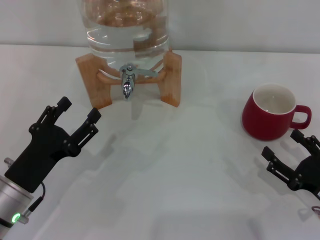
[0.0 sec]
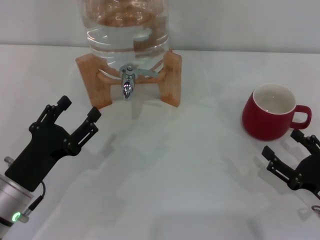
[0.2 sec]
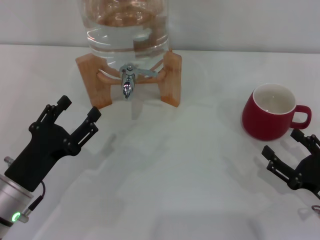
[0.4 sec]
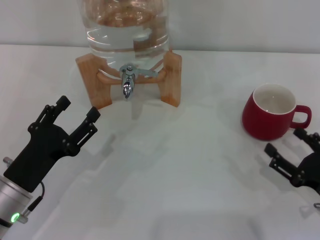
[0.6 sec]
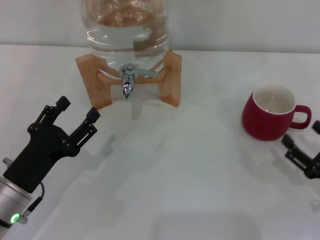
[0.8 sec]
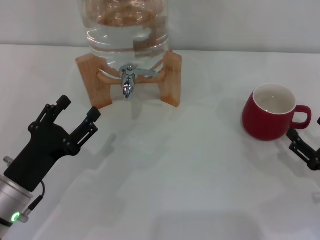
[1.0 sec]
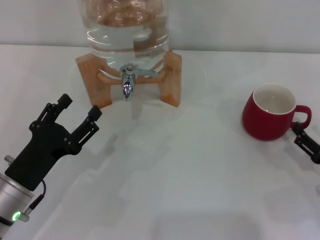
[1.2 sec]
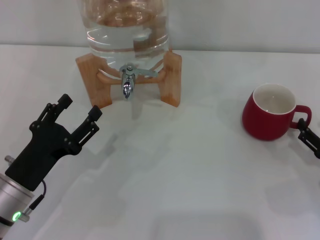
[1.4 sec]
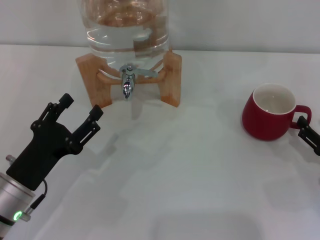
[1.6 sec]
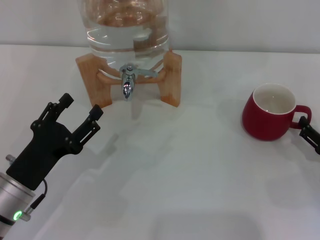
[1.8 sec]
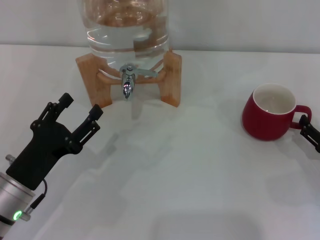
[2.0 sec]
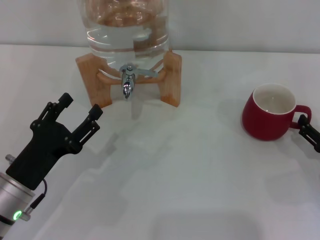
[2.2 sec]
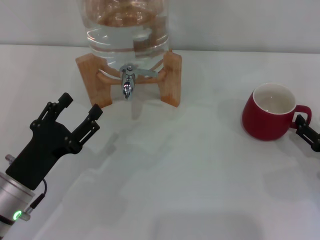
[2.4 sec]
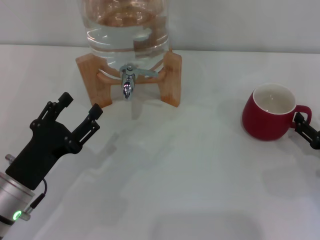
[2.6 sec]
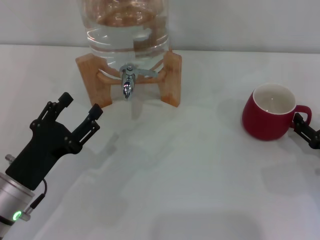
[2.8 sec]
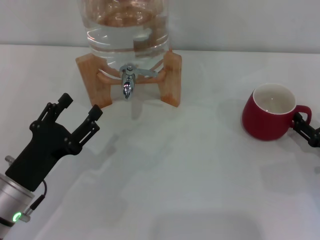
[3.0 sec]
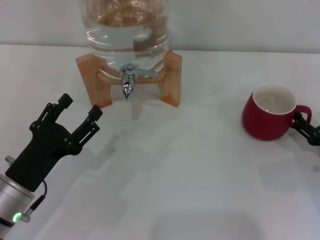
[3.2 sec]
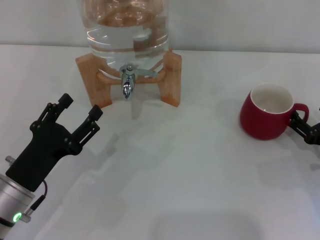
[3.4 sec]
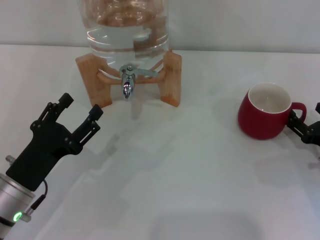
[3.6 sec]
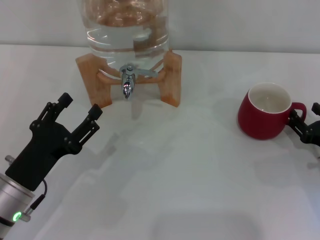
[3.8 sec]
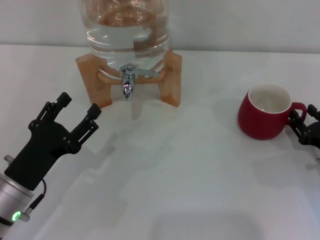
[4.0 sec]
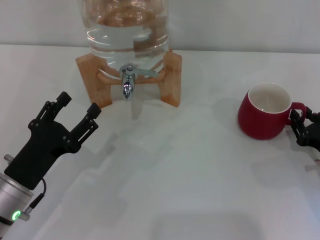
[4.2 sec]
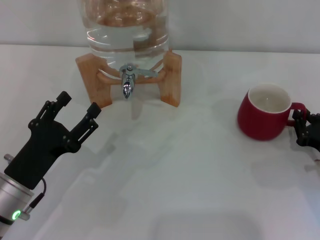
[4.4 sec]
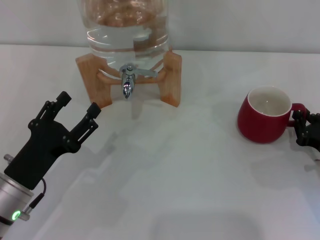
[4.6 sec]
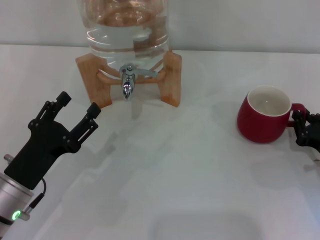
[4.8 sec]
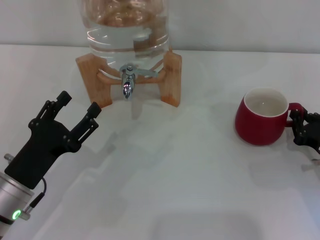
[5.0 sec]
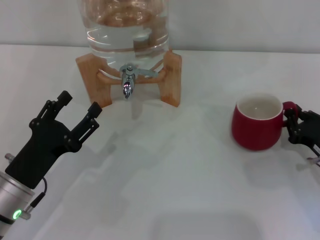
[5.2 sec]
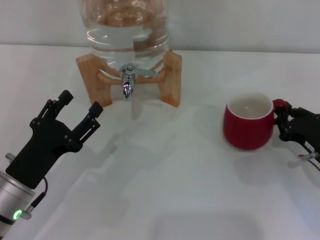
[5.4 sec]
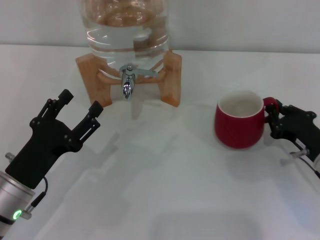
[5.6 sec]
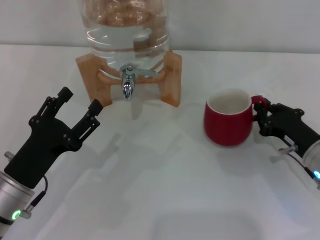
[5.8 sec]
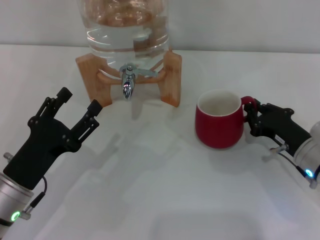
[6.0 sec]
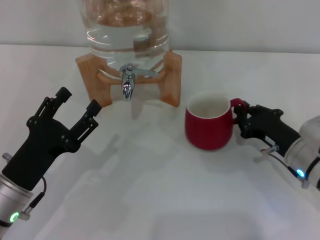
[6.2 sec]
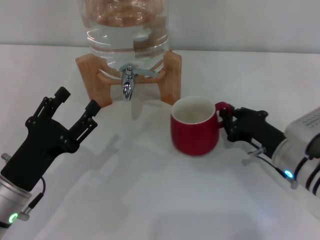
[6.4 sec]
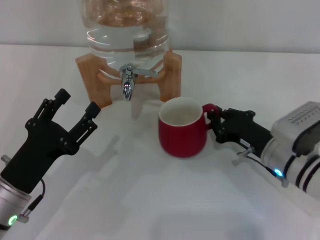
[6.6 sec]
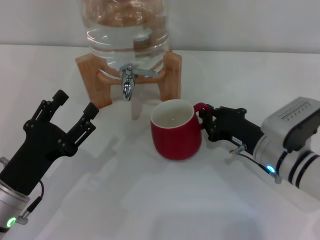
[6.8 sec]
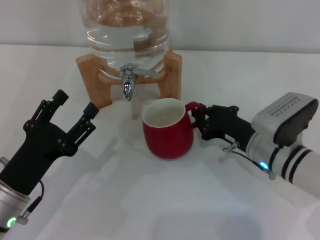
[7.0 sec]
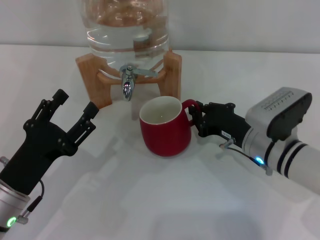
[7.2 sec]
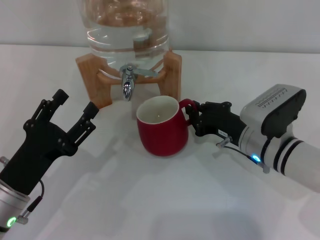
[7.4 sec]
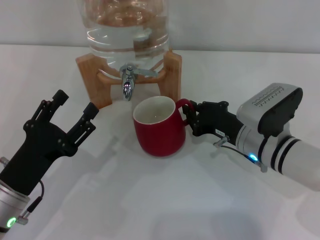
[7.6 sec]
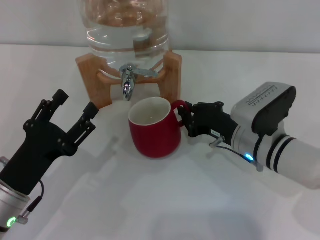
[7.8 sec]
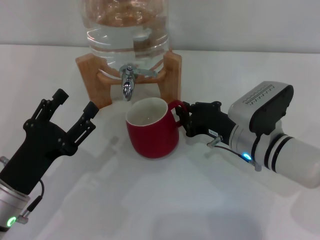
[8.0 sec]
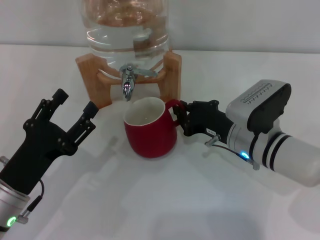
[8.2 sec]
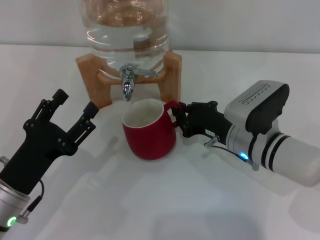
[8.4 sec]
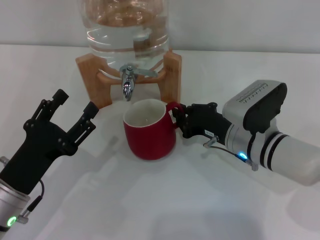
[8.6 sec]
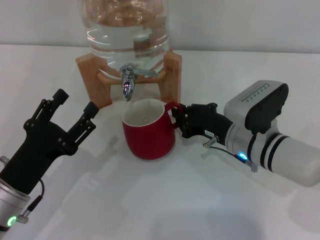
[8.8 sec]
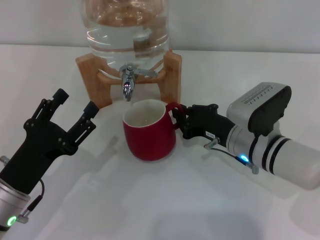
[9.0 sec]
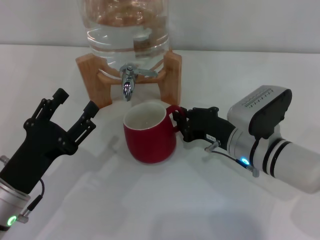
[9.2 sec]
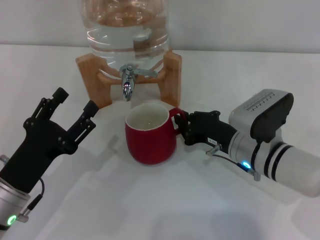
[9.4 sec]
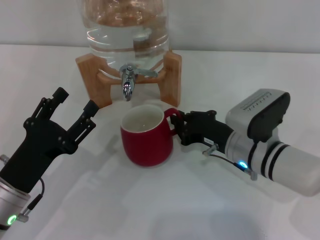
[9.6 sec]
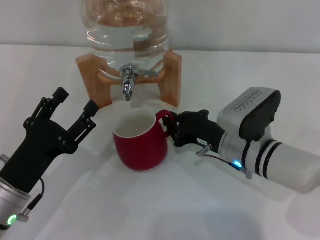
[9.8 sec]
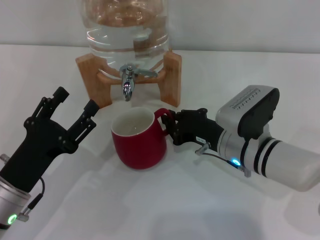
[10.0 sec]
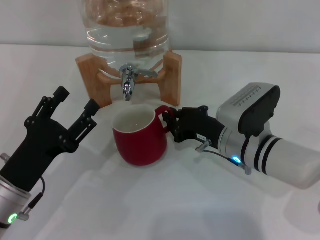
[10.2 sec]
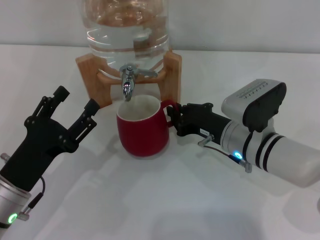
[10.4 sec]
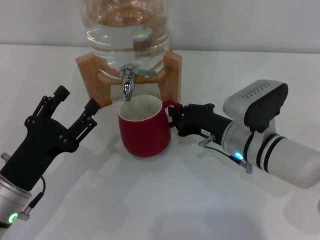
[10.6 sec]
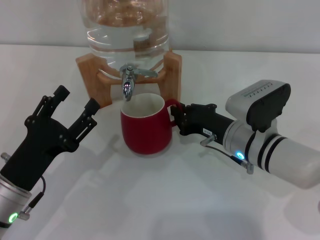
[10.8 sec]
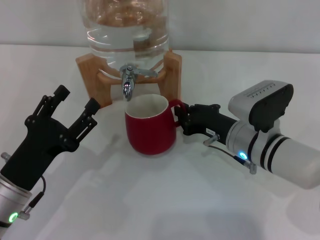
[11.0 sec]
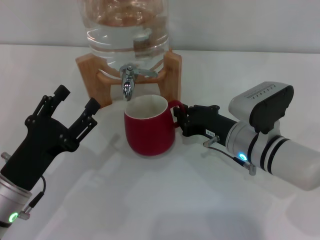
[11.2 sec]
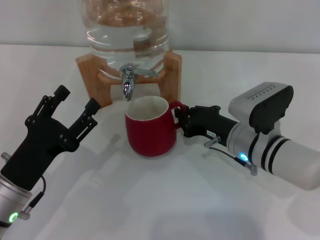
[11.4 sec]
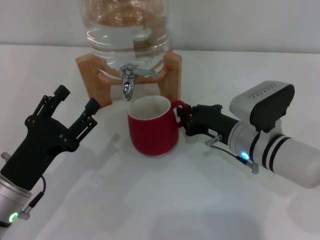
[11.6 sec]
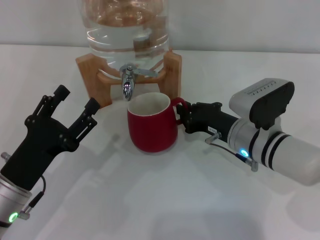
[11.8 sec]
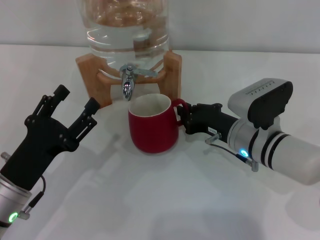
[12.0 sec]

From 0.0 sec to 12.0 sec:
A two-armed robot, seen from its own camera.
Task of the whole recording: the right gripper pick up the red cup and place it horizontally under the faucet, the left gripper turn on the faucet to fill the cup, and then turn off the faucet.
From 0.0 sec to 1.6 sec: The right gripper changes place by roughly 5 cm.
From 1.6 sec to 3.0 sec: The grippers stay close to where they were, moving slightly.
From 3.0 sec to 4.4 sec: The right gripper closes up.
From 4.4 sec to 6.0 sec: The right gripper shifts some 5 cm to the left.
From 6.0 sec to 7.6 sec: The right gripper moves to the left, about 10 cm.
From 7.6 sec to 10.4 sec: The grippers move only a little.
From 10.4 sec to 12.0 sec: Both grippers stay about where they are.

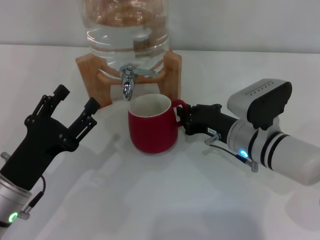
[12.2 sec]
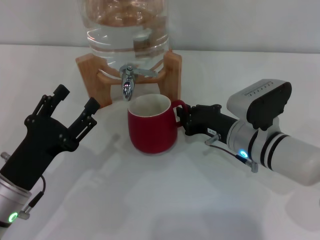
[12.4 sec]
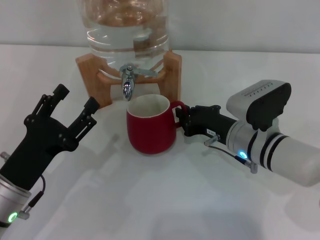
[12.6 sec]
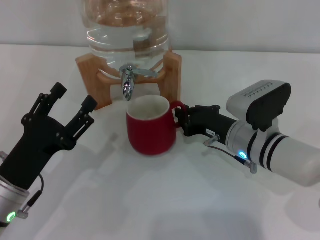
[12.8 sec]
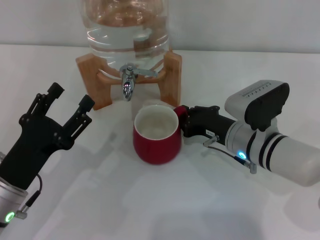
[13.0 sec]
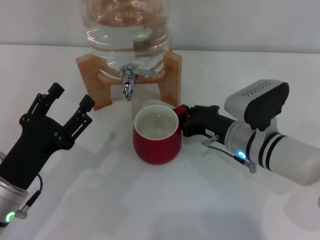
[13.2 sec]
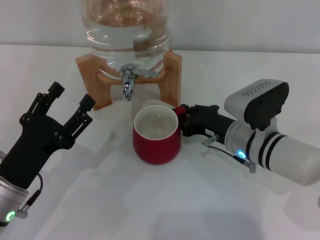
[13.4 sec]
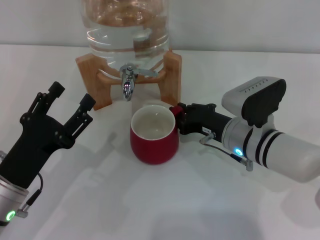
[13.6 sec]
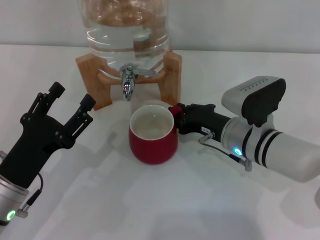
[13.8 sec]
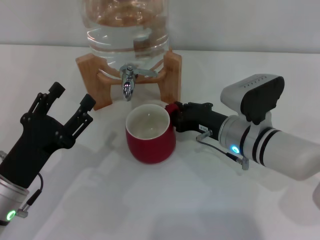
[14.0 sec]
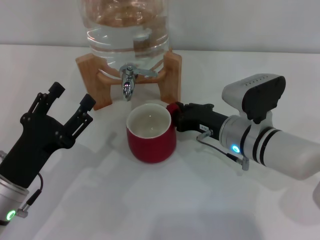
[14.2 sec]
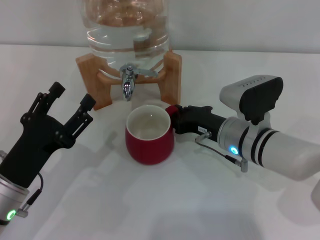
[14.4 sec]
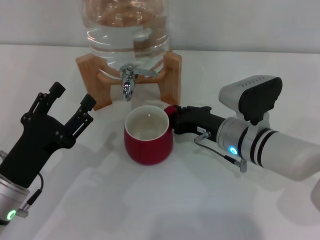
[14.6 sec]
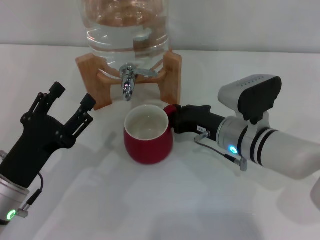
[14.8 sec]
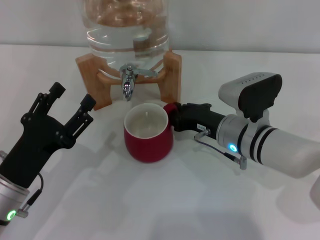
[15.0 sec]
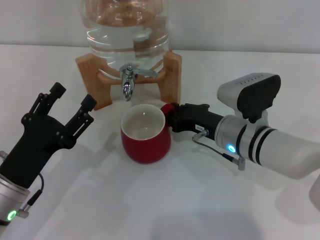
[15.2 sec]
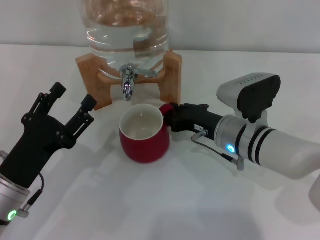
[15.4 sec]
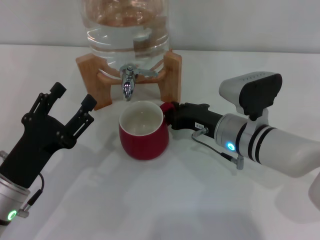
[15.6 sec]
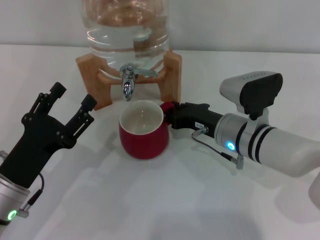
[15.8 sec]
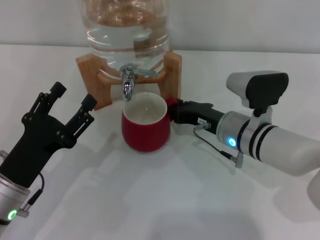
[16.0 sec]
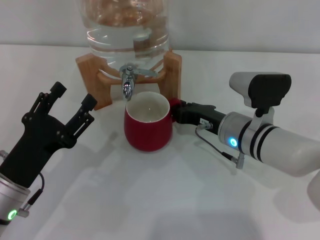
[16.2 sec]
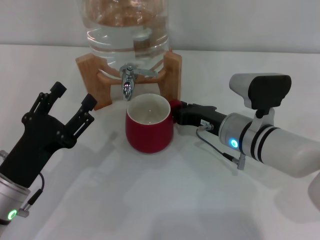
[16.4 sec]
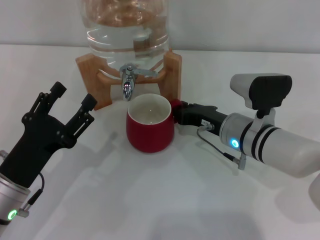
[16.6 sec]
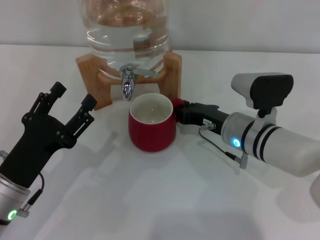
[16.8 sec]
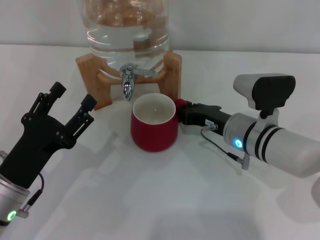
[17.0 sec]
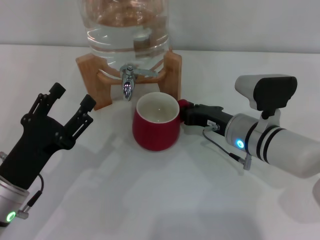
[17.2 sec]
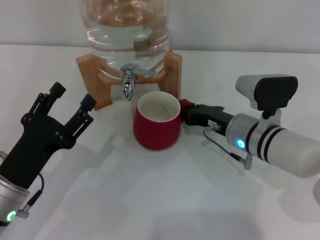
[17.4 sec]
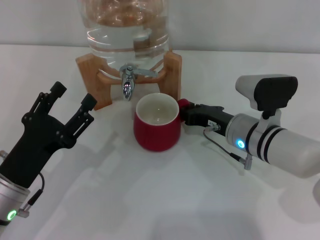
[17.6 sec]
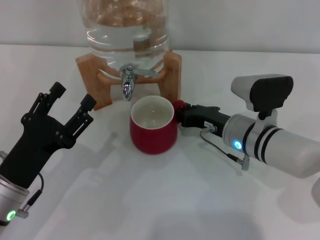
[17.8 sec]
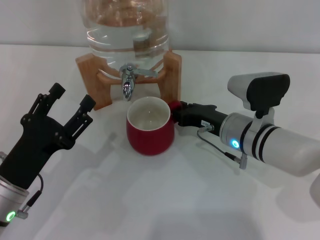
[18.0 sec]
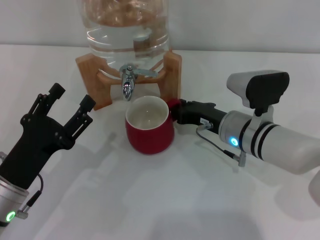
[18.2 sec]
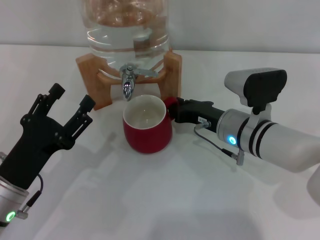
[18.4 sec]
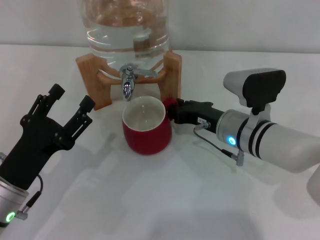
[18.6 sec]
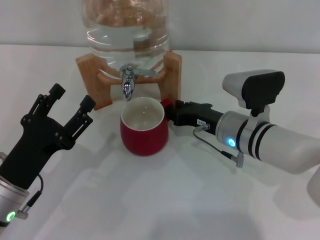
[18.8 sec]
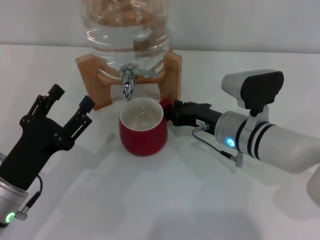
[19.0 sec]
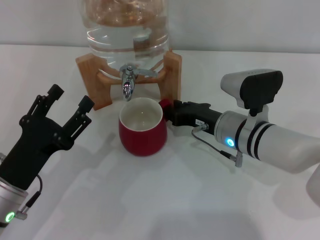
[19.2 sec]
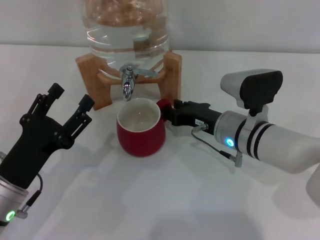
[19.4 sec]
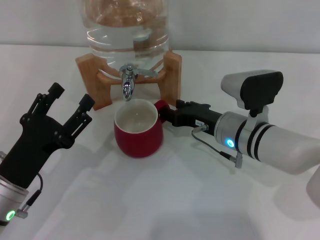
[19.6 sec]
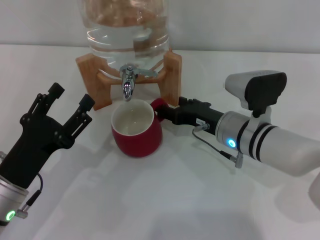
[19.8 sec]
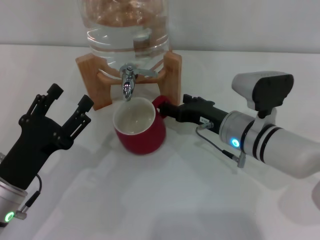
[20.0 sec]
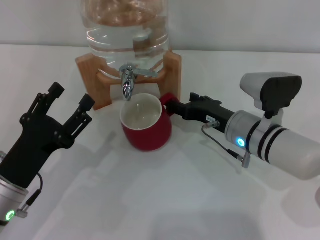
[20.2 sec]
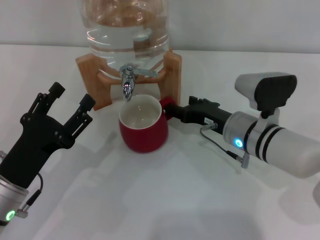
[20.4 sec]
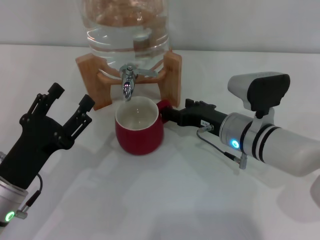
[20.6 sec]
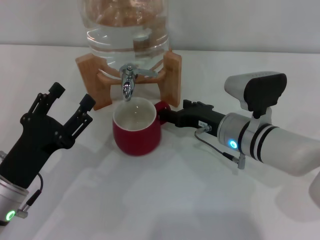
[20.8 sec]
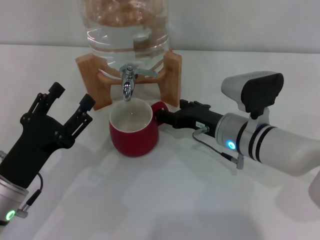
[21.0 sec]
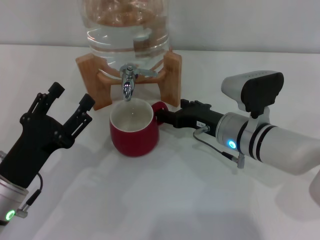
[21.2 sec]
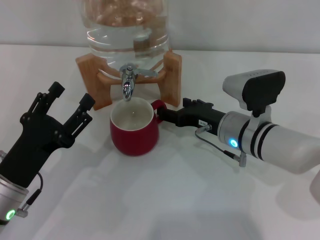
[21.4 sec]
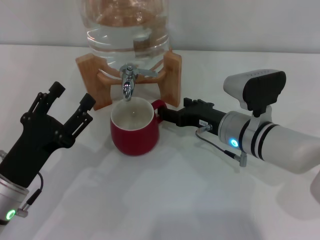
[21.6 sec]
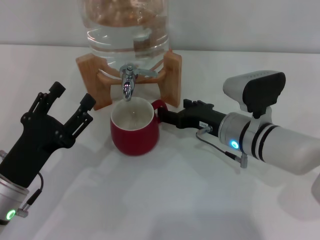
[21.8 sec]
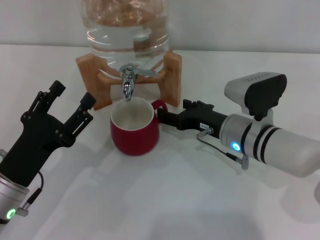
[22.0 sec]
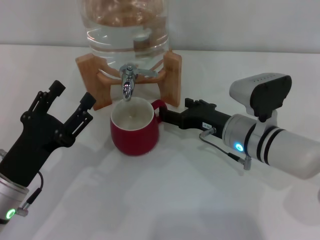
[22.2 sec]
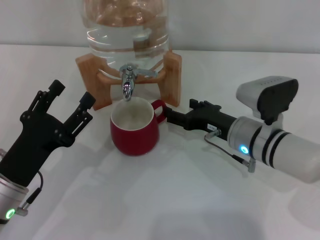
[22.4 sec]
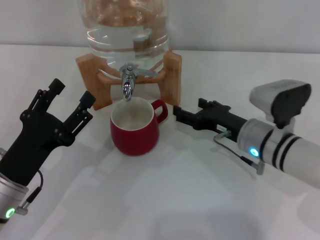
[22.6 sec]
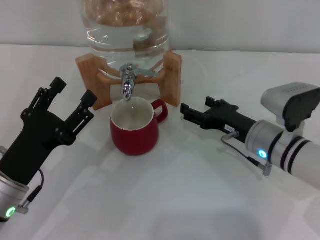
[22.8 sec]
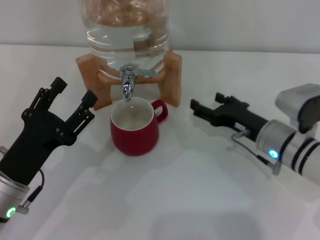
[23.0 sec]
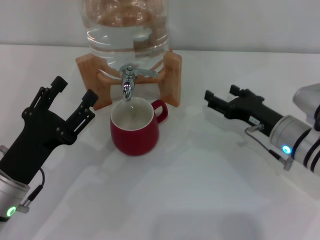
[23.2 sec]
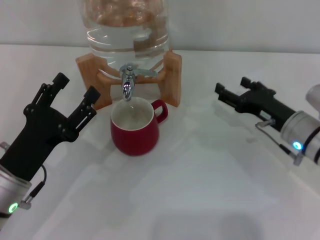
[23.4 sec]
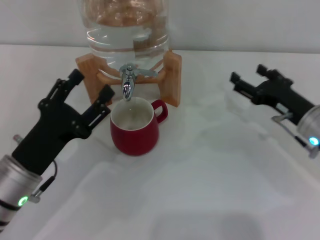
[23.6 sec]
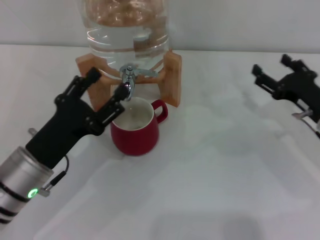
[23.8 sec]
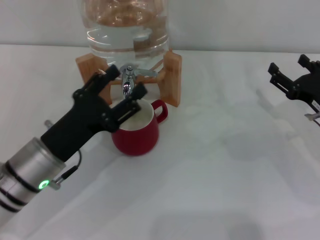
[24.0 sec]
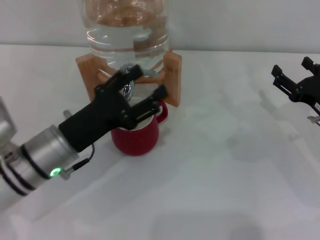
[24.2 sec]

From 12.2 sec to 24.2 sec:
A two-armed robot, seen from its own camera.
Task of the whole recording: the right gripper pick up the red cup and place it horizontally under the faucet, the left gripper turn on the faucet to fill the cup, and then turn off the faucet.
Step, from 12.2 sec to 22.8 sec: Move the cup beneath the water dispenser nozzle with the right gripper.
From 12.2 sec to 13.8 sec: Neither gripper changes place.
From 13.8 sec to 15.2 sec: Both grippers stay put.
From 15.2 sec to 16.6 sec: The grippers move only a little.
From 16.6 sec to 18.2 sec: Neither gripper changes place.
From 18.2 sec to 19.8 sec: The right gripper opens up.
From 19.8 sec to 22.6 sec: The grippers move only a little.
From 22.6 sec to 24.2 sec: The left gripper heads forward and to the right, covering approximately 10 cm; the right gripper travels to the right by roughly 15 cm.
